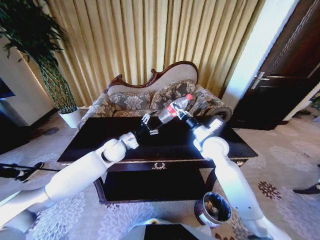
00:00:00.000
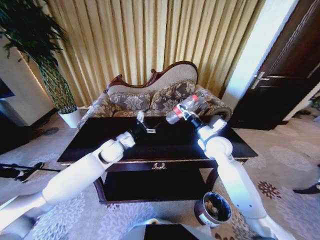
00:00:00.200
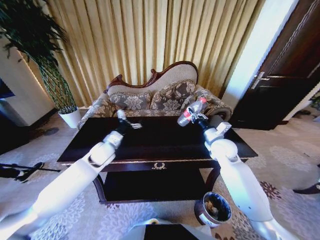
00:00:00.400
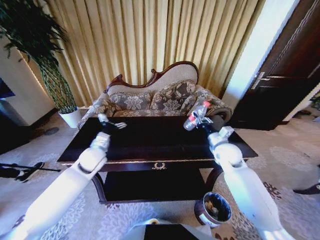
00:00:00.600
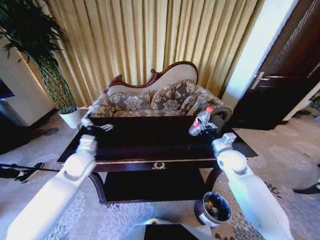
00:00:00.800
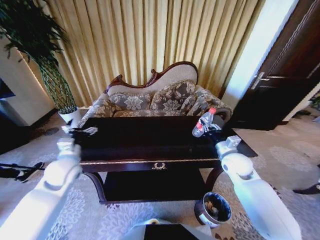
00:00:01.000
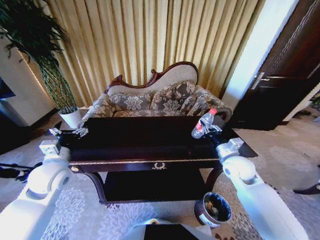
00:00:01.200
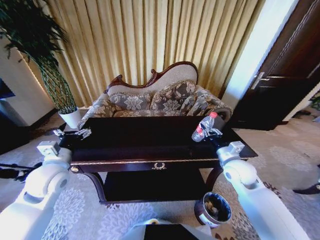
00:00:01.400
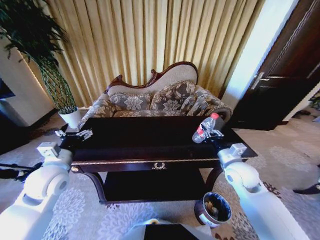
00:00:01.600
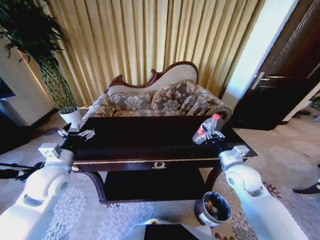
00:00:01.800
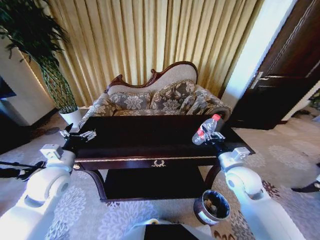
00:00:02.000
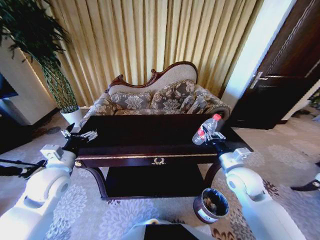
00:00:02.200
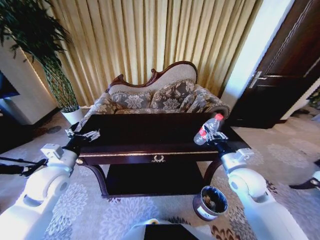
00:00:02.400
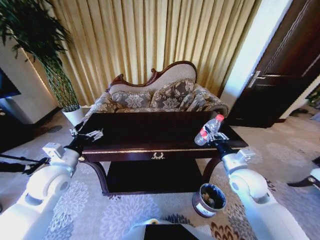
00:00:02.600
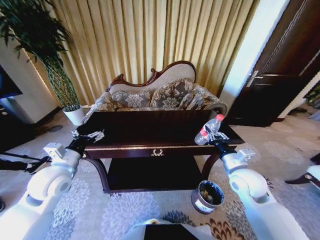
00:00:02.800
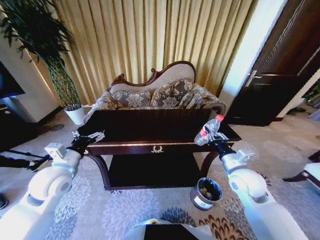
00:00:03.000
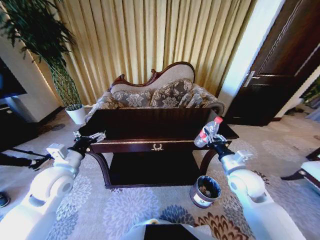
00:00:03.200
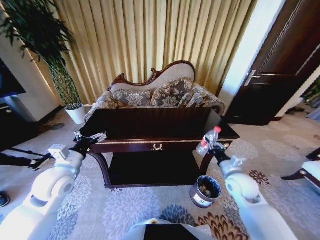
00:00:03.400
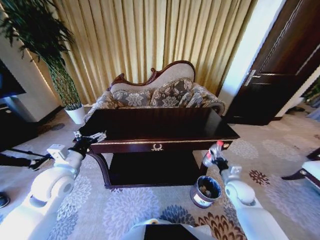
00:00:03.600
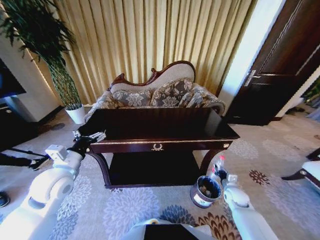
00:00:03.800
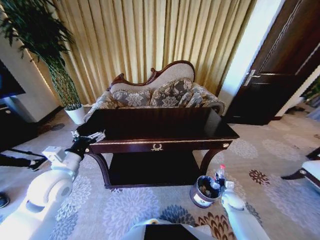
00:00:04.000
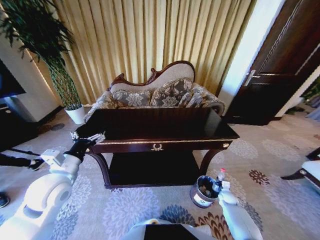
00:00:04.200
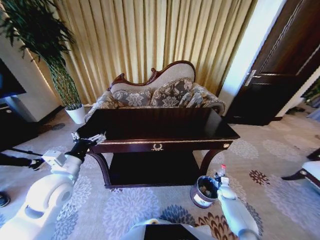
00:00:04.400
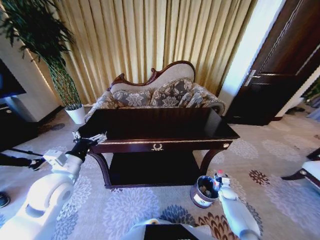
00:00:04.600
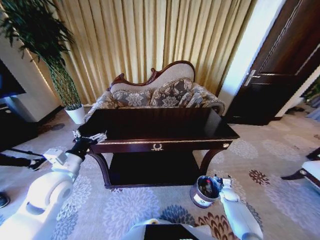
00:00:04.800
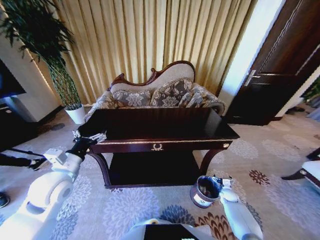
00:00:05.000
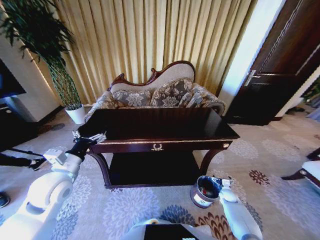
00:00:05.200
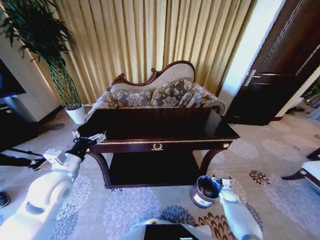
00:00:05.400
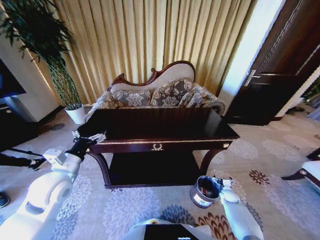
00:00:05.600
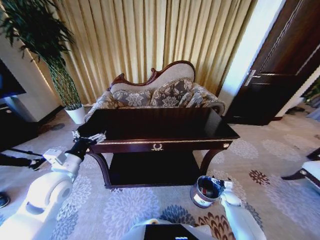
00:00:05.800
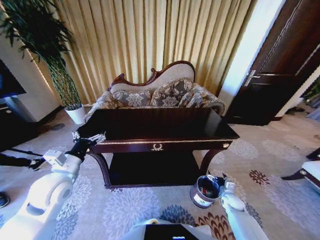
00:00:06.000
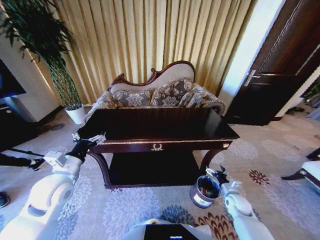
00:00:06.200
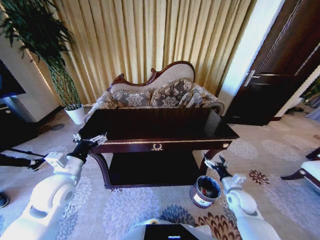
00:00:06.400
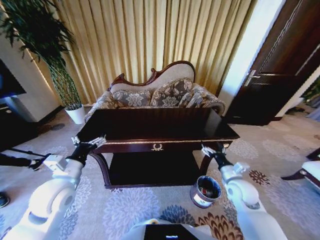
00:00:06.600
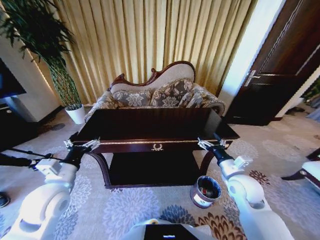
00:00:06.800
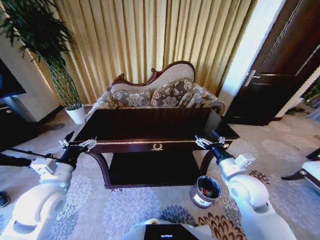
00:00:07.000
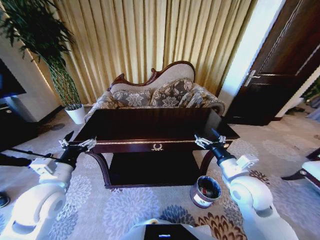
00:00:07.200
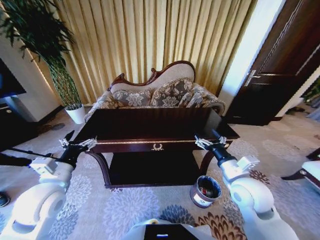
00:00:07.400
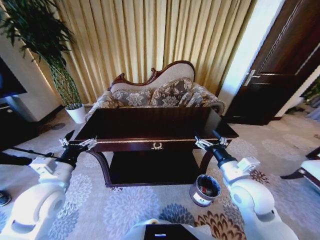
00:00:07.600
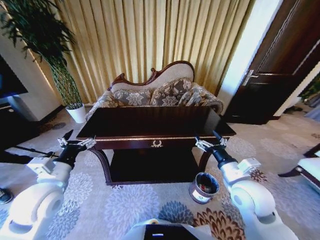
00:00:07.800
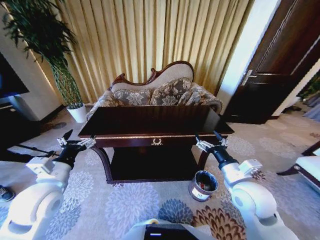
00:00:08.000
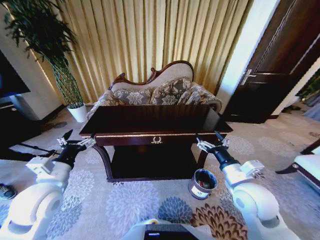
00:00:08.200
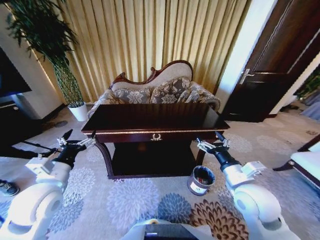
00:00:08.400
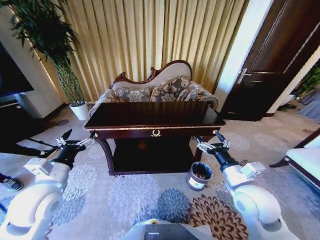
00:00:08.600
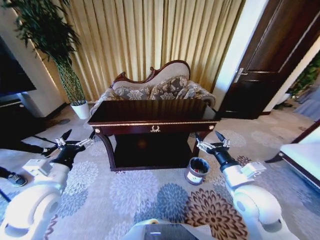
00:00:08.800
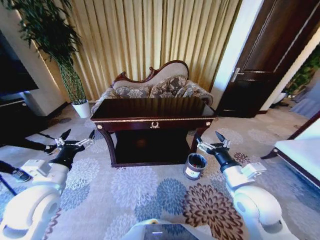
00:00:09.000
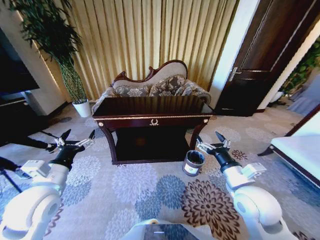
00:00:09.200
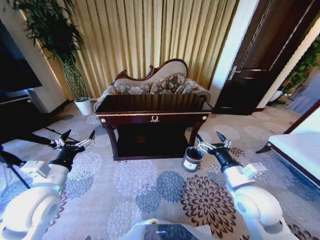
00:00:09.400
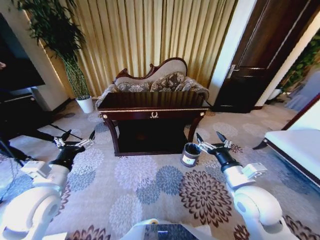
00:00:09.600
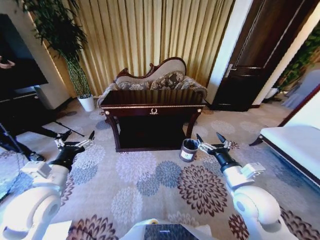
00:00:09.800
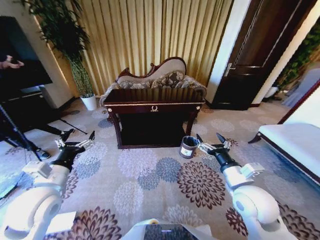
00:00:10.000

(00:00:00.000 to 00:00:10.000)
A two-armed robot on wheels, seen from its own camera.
Task of the whole recording: Move to the front of the table and place the trash on the table into the trash bin.
00:00:00.000 - 00:00:01.400: The left gripper goes about 20 cm to the left and backward, and opens its fingers. The right gripper shifts roughly 10 cm backward and to the right.
00:00:02.800 - 00:00:04.200: The right gripper moves downward, about 35 cm.
00:00:04.200 - 00:00:05.800: The right gripper opens up.
00:00:05.800 - 00:00:07.200: The right gripper is displaced upward and to the left by roughly 40 cm.

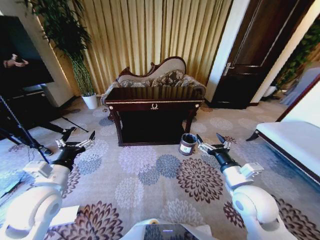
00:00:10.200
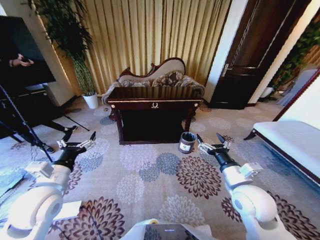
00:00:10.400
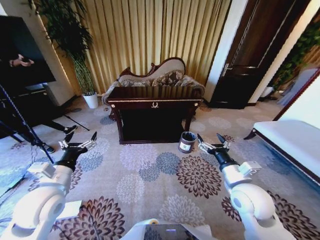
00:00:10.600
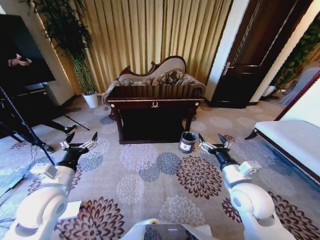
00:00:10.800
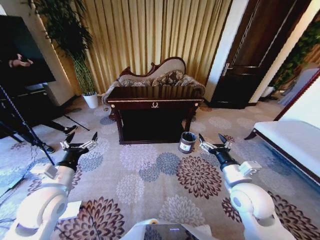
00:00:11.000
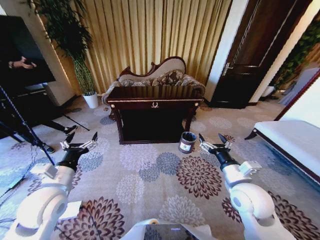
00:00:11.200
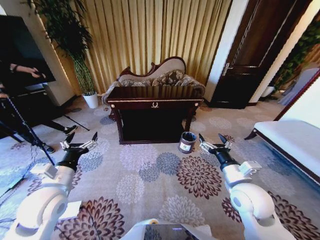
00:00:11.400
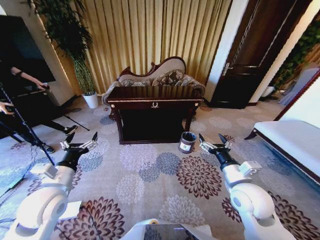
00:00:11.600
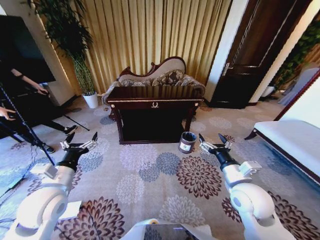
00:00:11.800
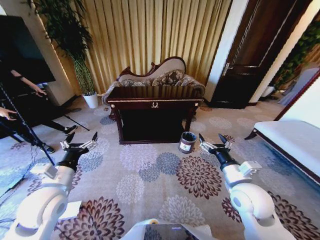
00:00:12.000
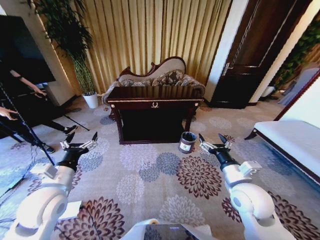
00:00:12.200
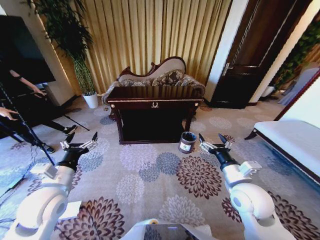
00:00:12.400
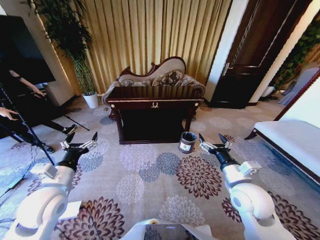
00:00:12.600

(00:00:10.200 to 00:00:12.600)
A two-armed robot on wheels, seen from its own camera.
Task of the whole recording: Move to the front of the table and place the trash on the table into the trash bin.
00:00:11.400 - 00:00:12.600: Both grippers stay put.
